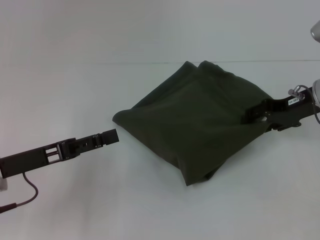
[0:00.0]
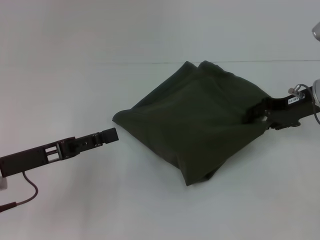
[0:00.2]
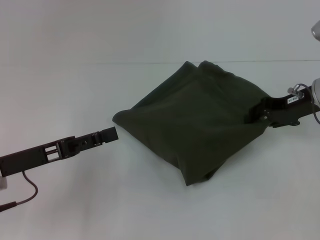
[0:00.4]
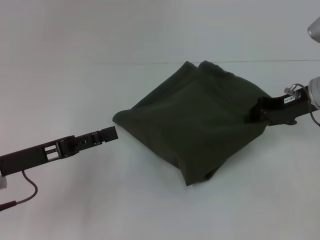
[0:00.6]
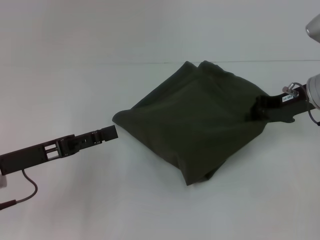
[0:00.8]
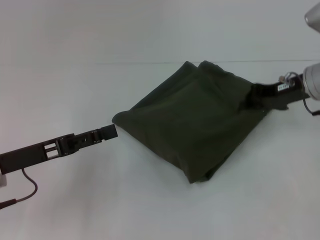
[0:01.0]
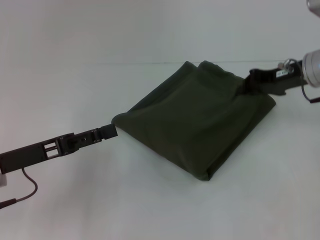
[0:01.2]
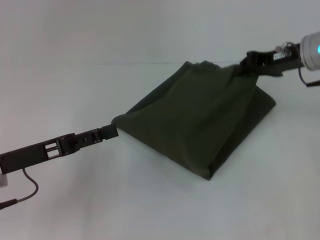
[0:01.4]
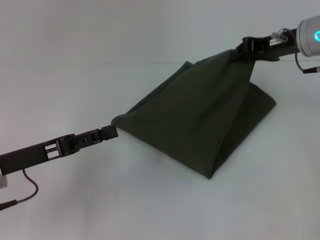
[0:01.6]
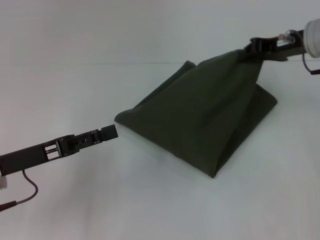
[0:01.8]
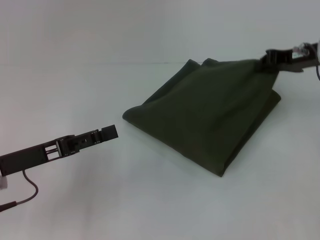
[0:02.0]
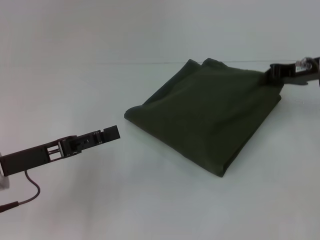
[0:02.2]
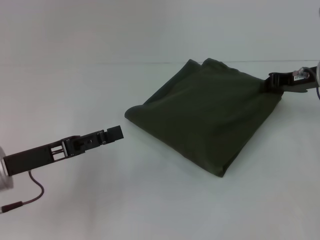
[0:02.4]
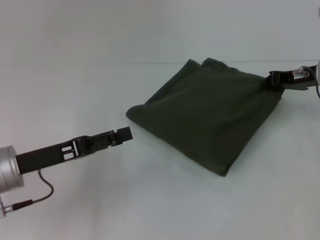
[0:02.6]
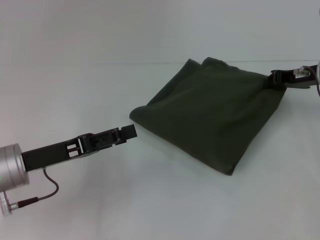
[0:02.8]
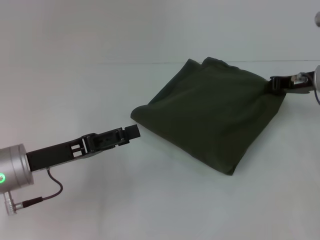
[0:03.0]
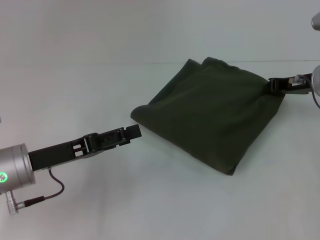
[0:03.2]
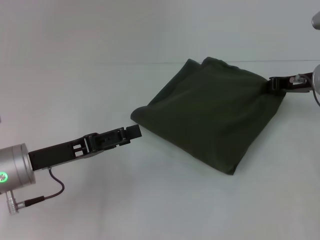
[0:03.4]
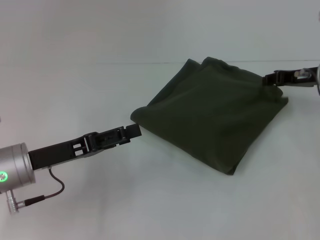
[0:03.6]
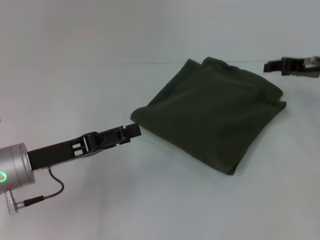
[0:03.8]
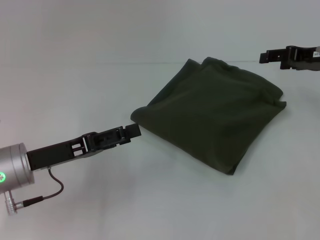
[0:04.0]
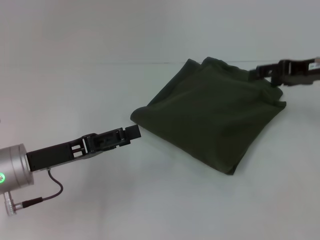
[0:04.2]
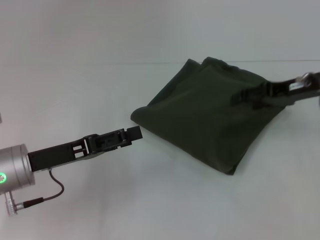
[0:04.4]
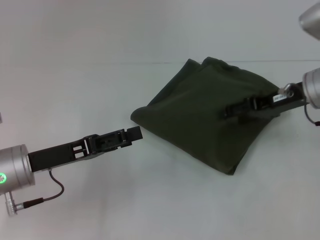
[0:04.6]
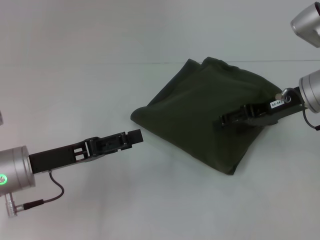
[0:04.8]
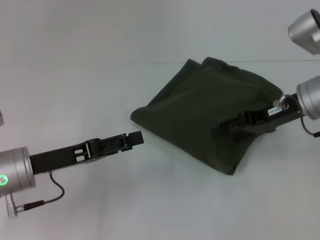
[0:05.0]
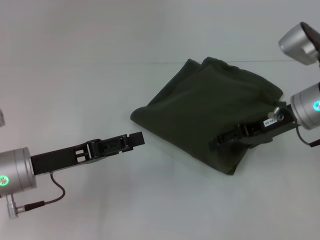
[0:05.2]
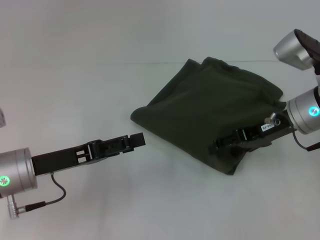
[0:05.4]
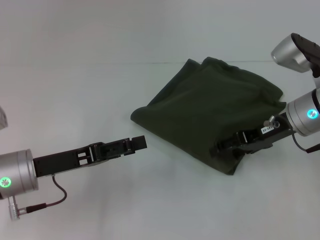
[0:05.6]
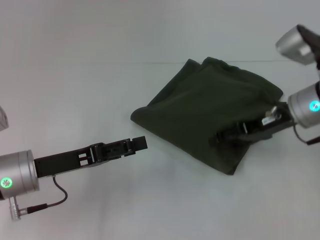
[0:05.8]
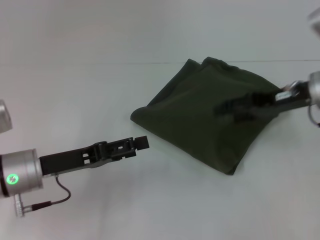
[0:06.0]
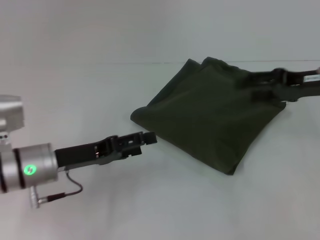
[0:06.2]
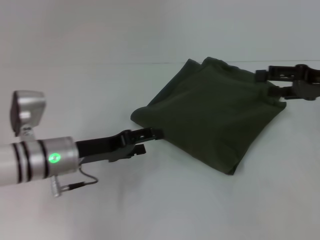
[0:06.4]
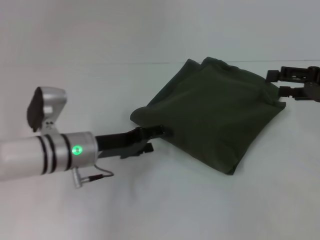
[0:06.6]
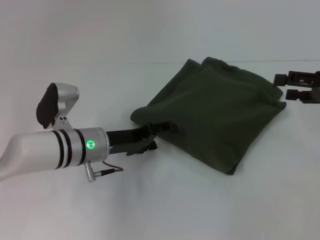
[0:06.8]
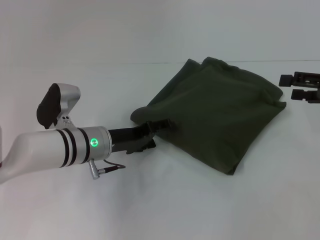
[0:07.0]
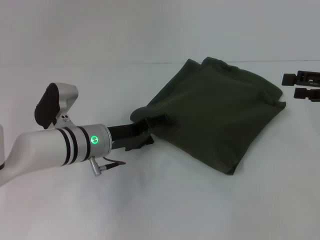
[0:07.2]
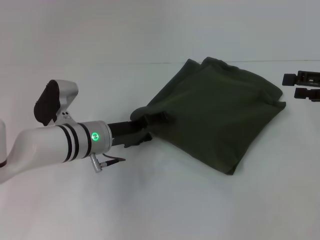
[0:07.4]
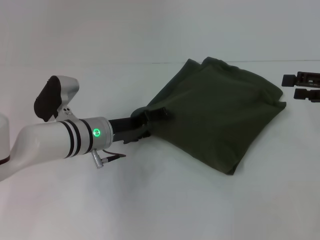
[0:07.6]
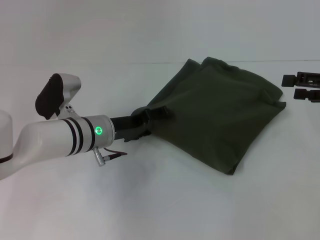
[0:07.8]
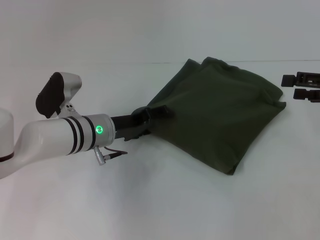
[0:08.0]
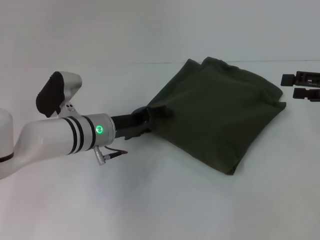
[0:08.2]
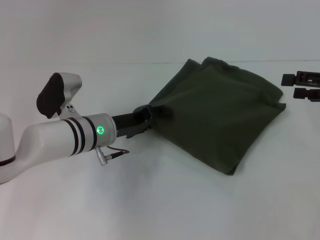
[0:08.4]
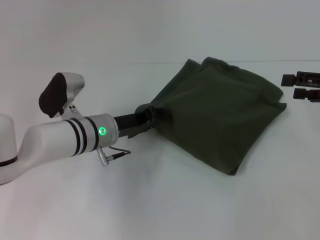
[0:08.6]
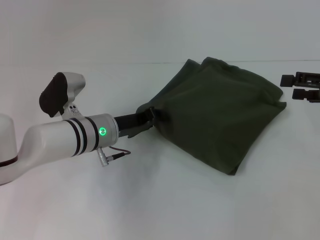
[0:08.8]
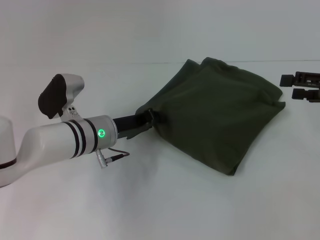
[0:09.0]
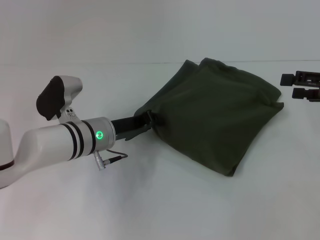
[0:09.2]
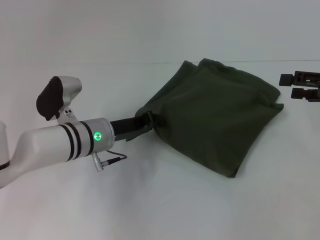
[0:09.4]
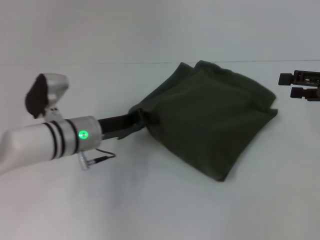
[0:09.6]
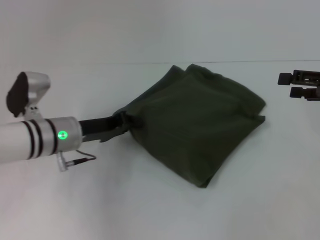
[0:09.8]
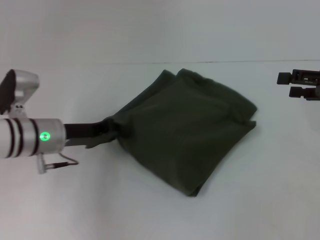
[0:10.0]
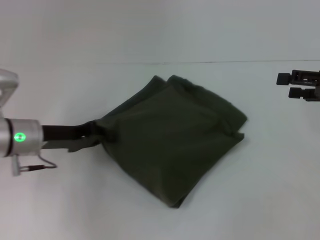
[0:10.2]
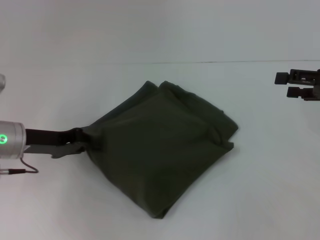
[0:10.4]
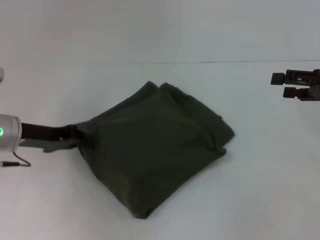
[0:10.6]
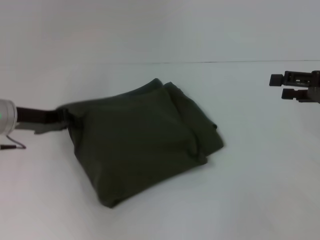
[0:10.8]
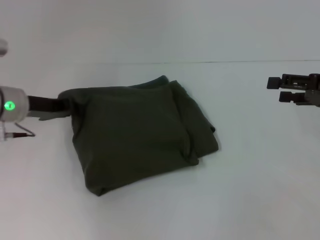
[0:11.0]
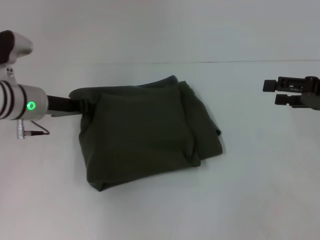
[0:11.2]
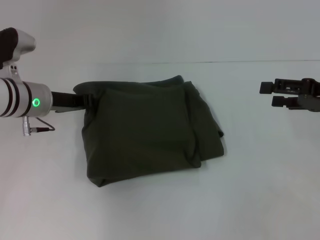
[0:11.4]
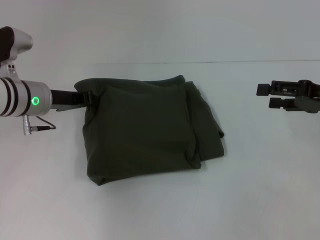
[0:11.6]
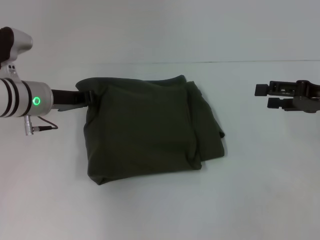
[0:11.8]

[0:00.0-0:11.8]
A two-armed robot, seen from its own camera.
0:00.0 to 0:01.4: The right gripper ends up some 5 cm from where it was, and closes up.
0:01.4 to 0:03.0: The right gripper travels downward by some 5 cm.
0:03.0 to 0:04.4: The right gripper opens.
0:04.4 to 0:06.0: There are only small adjustments of the grippers.
0:06.0 to 0:07.4: The left gripper travels to the right and forward by roughly 10 cm; the right gripper heads to the right, covering some 10 cm.
0:07.4 to 0:08.8: The left gripper closes its fingers.
0:08.8 to 0:10.4: The left gripper travels to the left by approximately 15 cm, and closes its fingers.
0:10.4 to 0:11.8: The left gripper shifts approximately 5 cm forward.

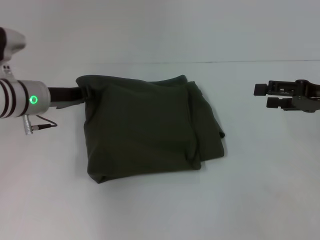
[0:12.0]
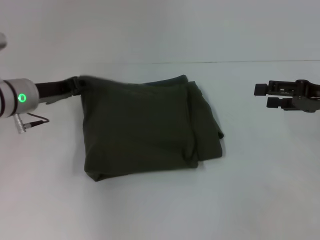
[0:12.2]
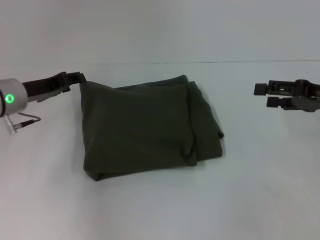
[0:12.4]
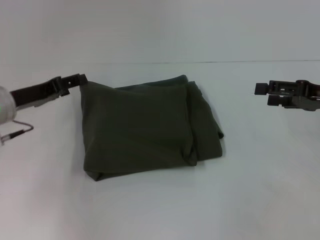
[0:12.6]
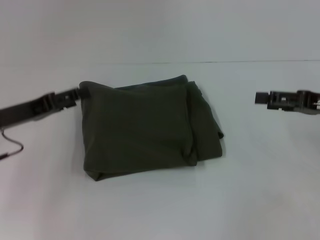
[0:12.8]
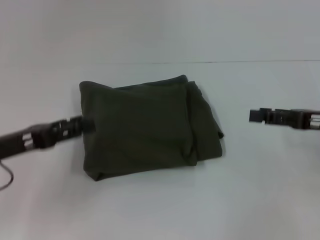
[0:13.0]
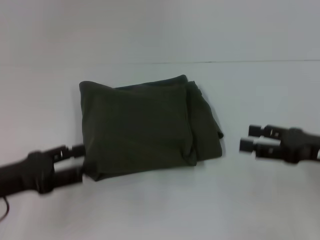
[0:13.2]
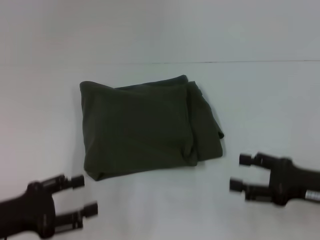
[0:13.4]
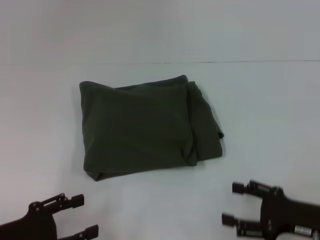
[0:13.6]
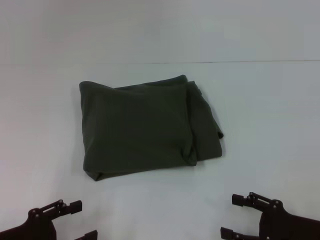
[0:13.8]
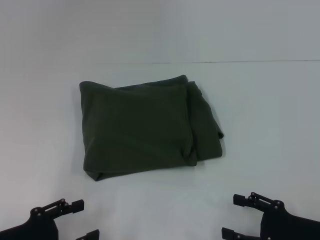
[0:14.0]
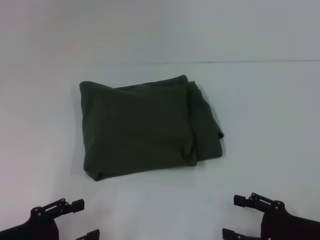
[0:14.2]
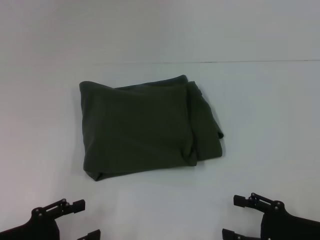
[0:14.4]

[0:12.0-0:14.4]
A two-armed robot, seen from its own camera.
0:12.0 to 0:13.2: The right gripper shifts about 5 cm backward. The left gripper heads backward, covering approximately 15 cm, and opens.
0:13.2 to 0:14.4: The grippers both shift backward and downward by roughly 10 cm.

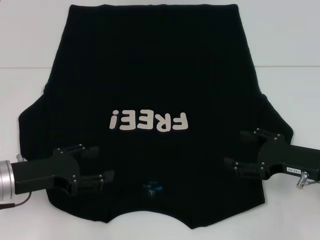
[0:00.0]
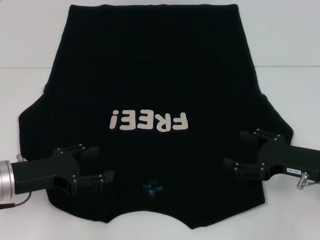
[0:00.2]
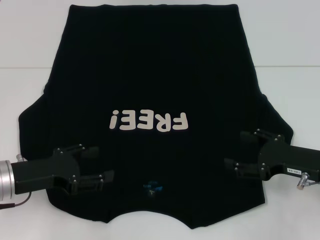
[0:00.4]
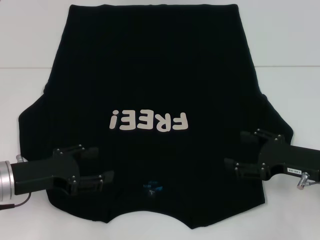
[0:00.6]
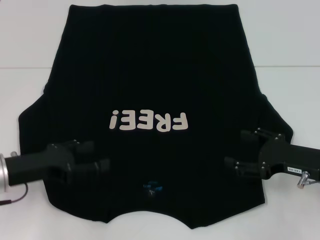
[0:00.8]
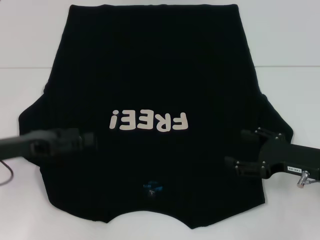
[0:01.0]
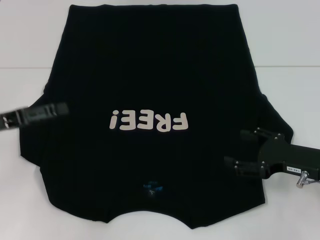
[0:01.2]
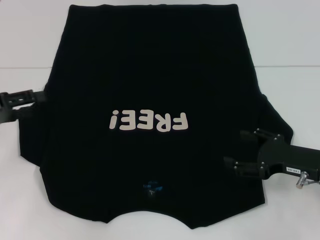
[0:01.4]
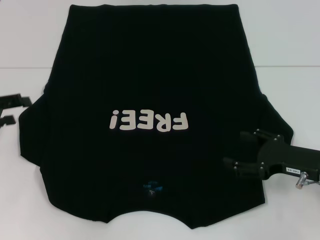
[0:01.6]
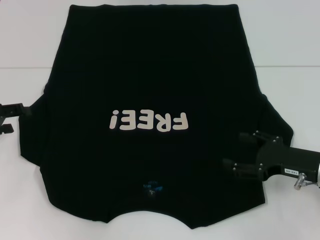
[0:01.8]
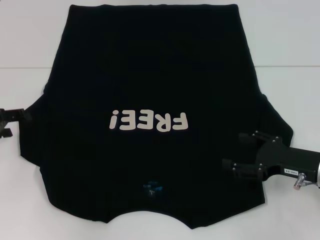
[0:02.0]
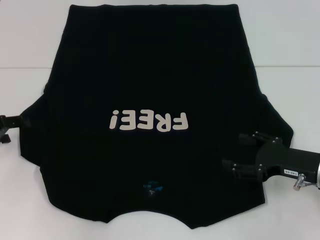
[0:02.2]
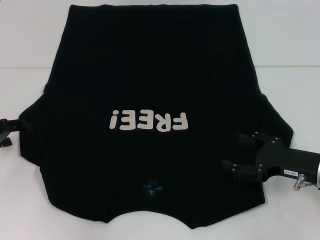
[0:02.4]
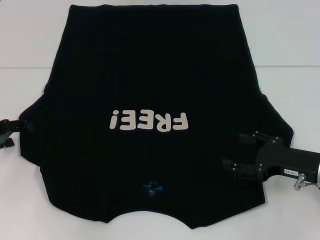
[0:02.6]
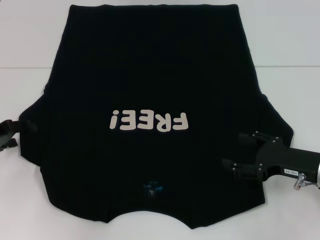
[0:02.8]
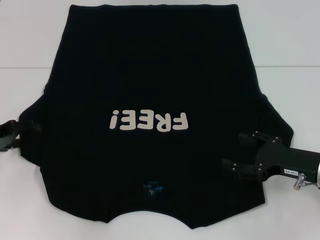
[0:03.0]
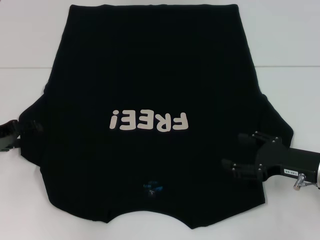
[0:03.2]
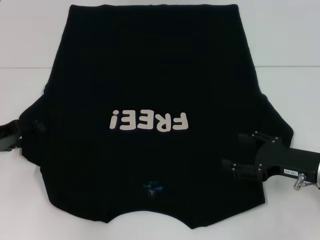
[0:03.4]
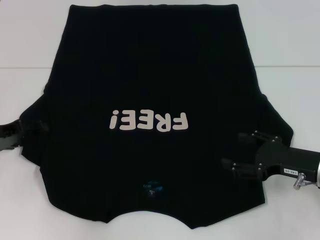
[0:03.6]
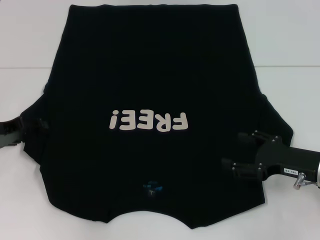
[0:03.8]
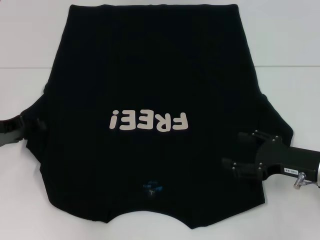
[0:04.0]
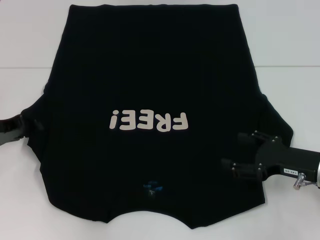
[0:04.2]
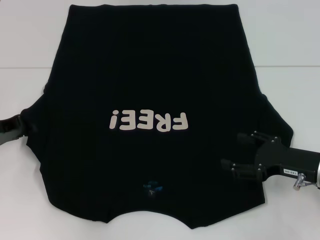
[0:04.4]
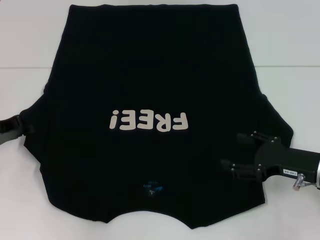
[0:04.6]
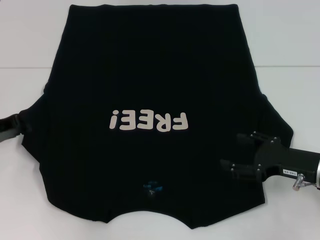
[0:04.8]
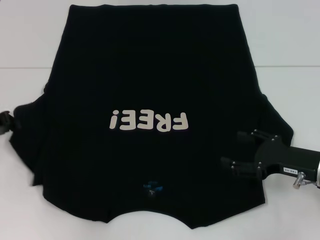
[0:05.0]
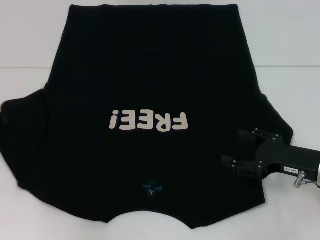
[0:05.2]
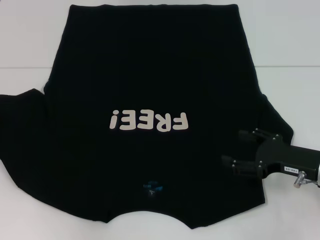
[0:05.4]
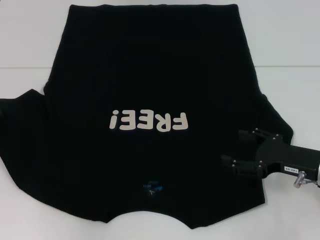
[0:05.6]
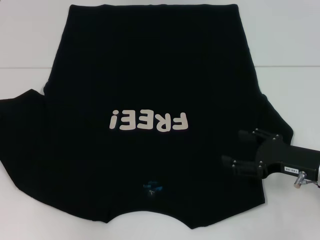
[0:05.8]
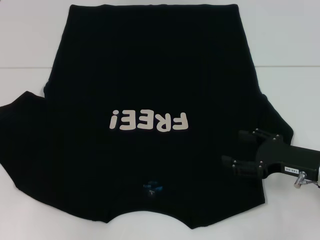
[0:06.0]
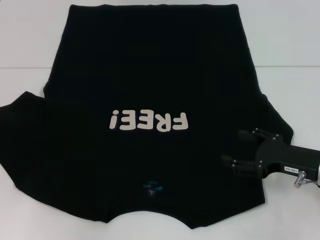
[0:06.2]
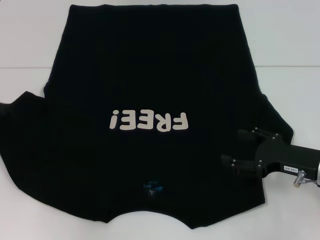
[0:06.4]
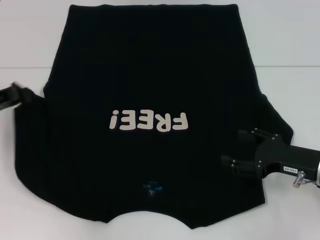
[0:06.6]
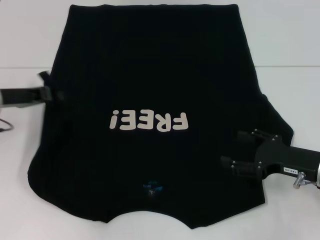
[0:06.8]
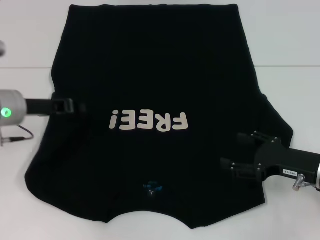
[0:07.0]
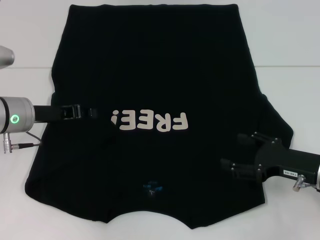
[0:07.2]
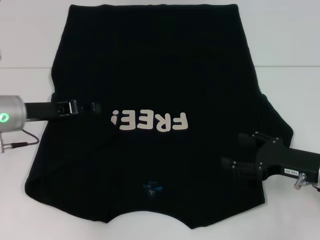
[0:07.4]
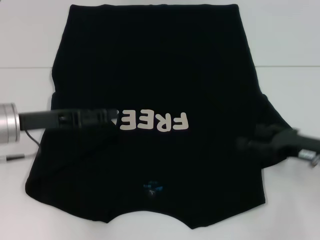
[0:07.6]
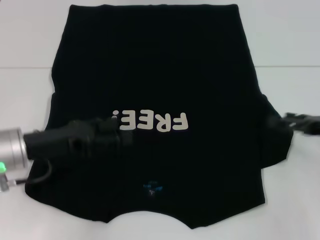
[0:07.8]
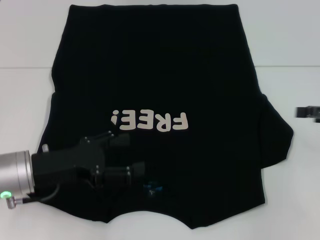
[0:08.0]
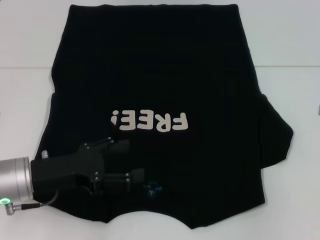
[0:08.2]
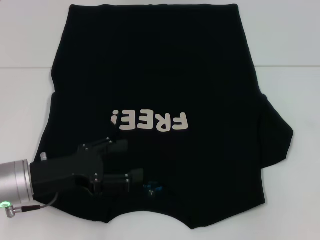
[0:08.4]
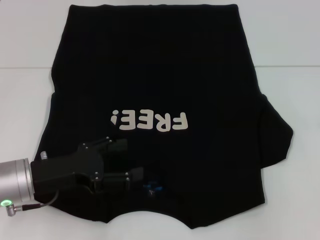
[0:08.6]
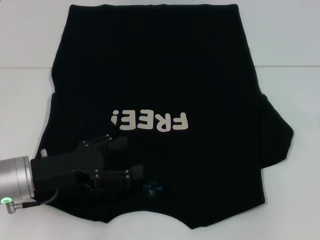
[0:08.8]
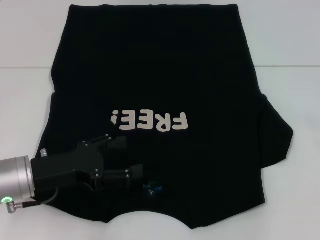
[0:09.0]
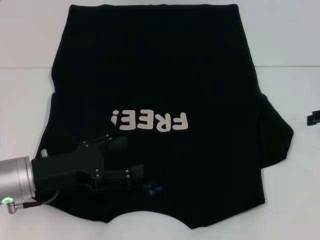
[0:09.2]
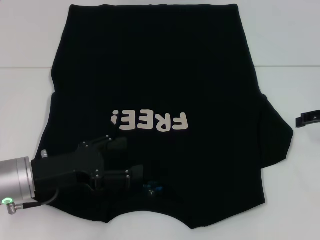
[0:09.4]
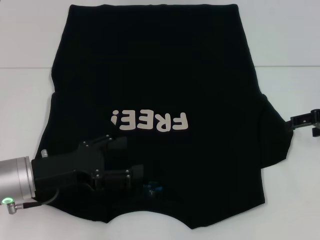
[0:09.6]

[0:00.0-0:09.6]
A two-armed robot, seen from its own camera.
Step, 0:00.0 to 0:07.8: Fold the bottom left sleeve with your left hand.
0:00.0 to 0:01.6: The left gripper travels to the left, upward and forward by about 15 cm.
0:01.6 to 0:03.2: The left gripper changes place by some 5 cm.
0:03.2 to 0:04.8: The left gripper closes its fingers.
0:04.8 to 0:06.4: There are only small adjustments of the grippers.
0:06.4 to 0:08.0: The left gripper shifts approximately 15 cm to the right and backward, and opens, while the right gripper heads to the right and upward, covering about 15 cm.
0:08.0 to 0:09.6: The right gripper ends up some 5 cm from where it was.
